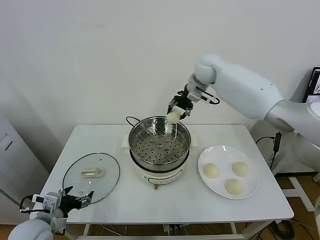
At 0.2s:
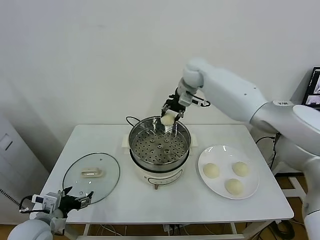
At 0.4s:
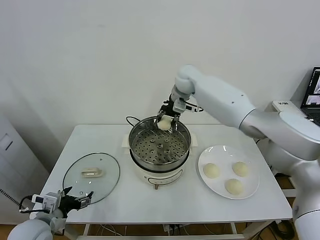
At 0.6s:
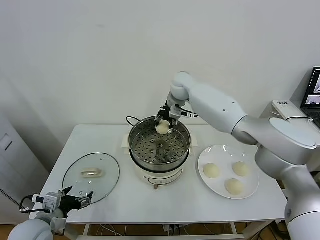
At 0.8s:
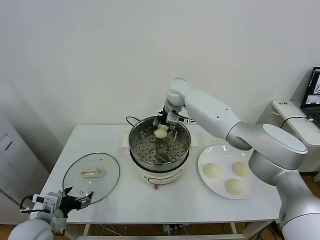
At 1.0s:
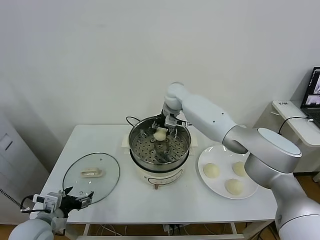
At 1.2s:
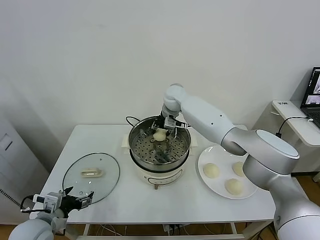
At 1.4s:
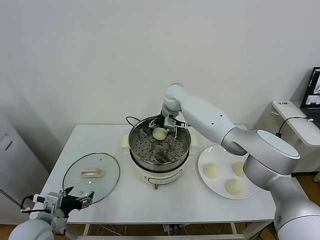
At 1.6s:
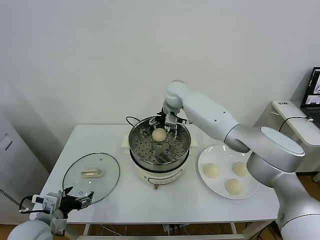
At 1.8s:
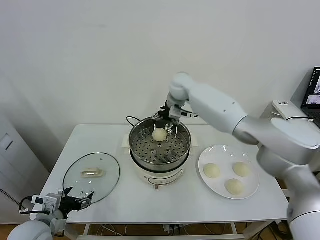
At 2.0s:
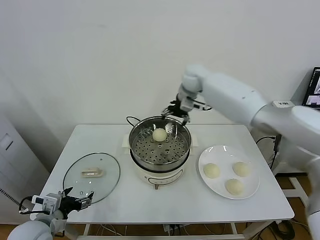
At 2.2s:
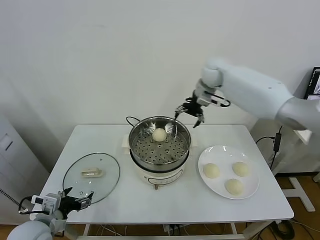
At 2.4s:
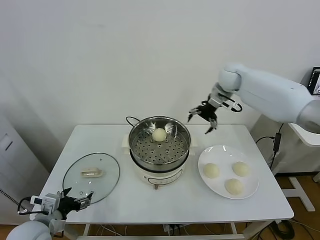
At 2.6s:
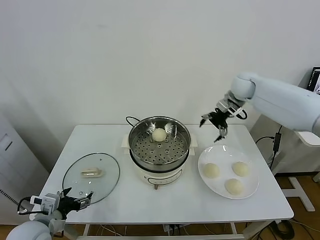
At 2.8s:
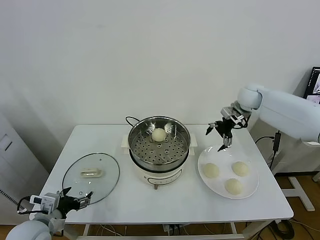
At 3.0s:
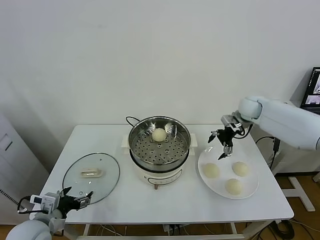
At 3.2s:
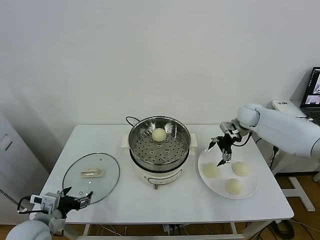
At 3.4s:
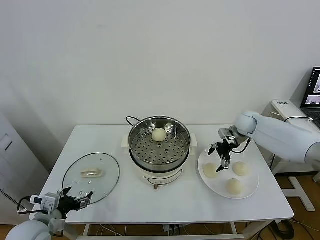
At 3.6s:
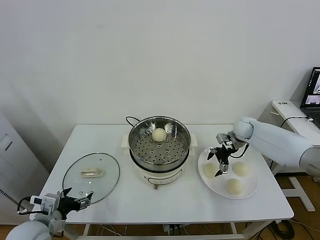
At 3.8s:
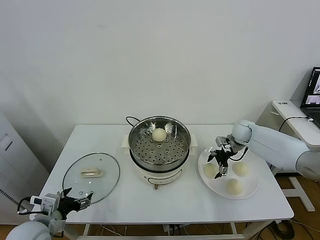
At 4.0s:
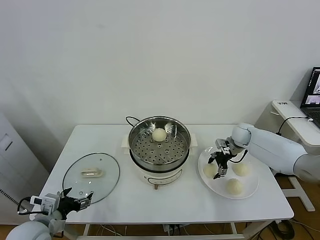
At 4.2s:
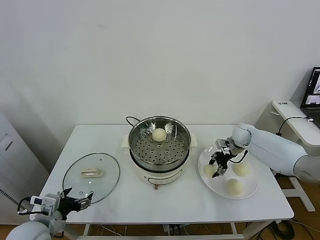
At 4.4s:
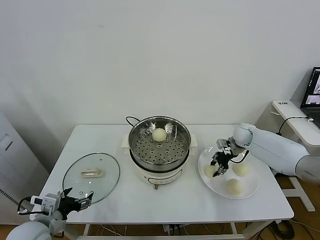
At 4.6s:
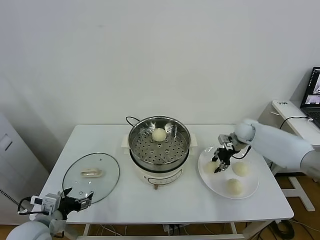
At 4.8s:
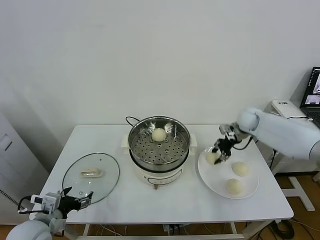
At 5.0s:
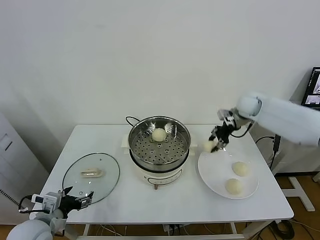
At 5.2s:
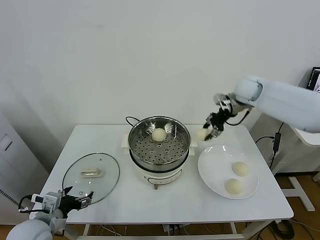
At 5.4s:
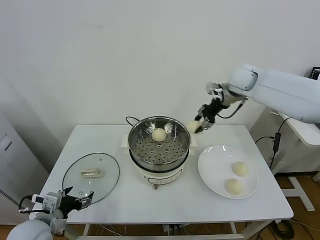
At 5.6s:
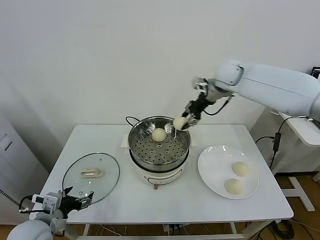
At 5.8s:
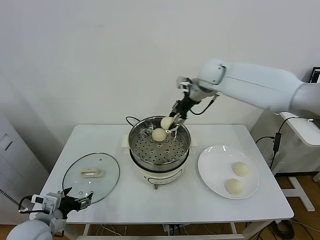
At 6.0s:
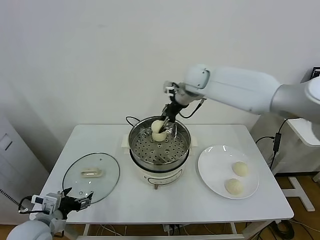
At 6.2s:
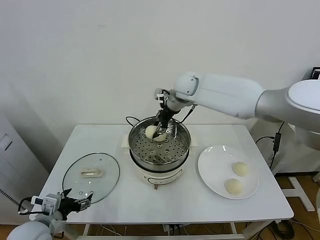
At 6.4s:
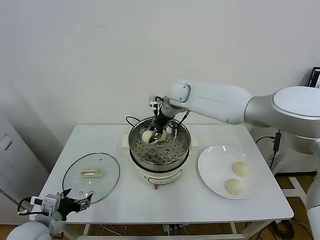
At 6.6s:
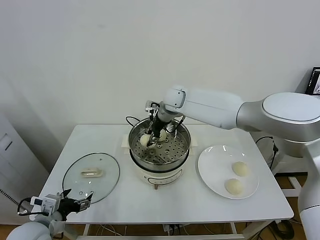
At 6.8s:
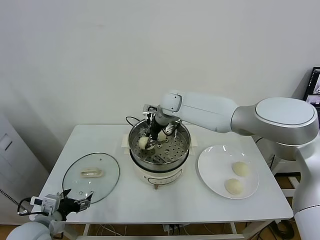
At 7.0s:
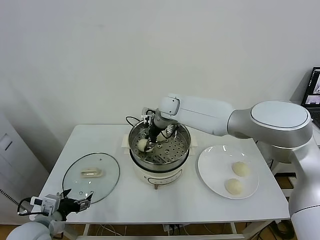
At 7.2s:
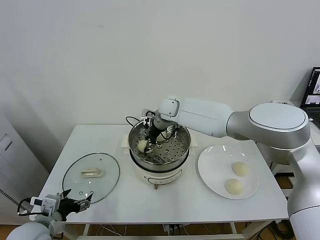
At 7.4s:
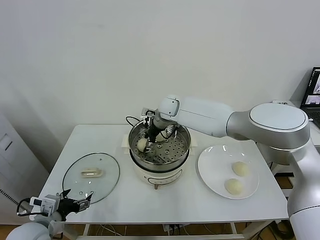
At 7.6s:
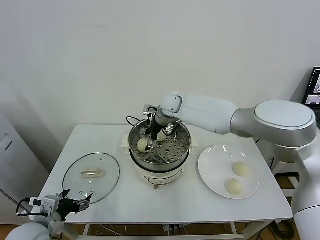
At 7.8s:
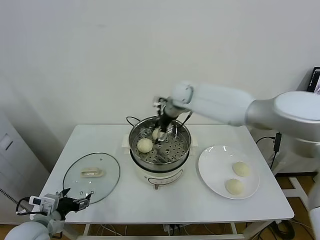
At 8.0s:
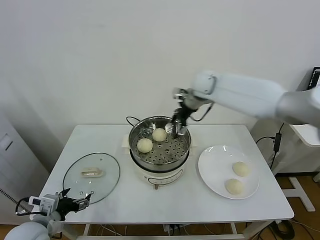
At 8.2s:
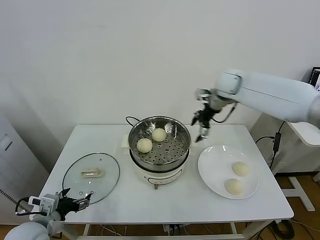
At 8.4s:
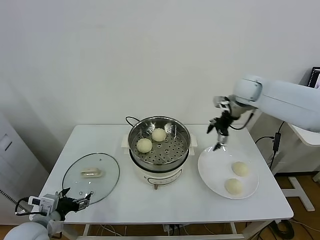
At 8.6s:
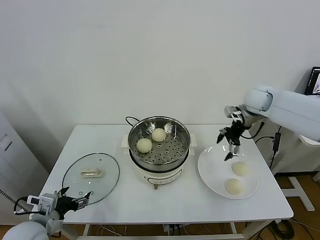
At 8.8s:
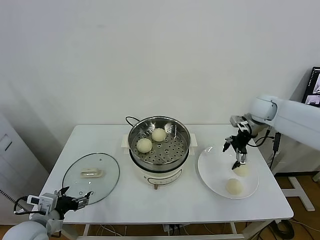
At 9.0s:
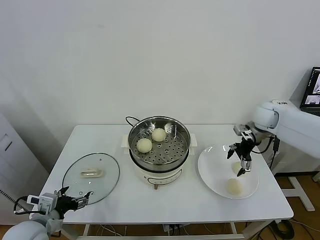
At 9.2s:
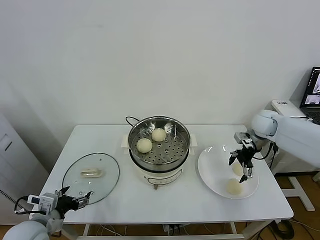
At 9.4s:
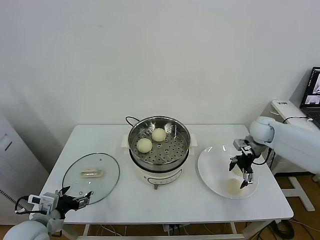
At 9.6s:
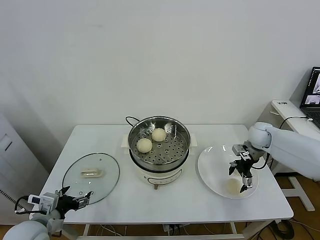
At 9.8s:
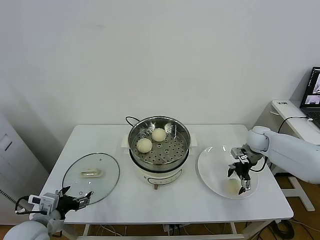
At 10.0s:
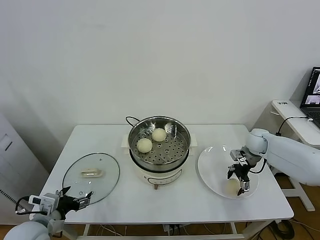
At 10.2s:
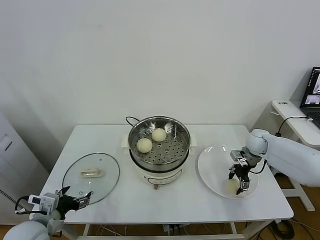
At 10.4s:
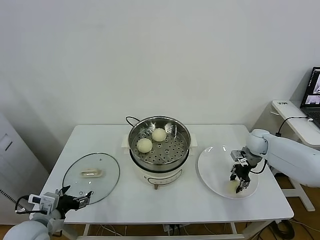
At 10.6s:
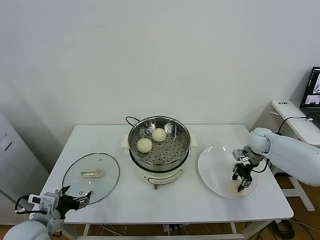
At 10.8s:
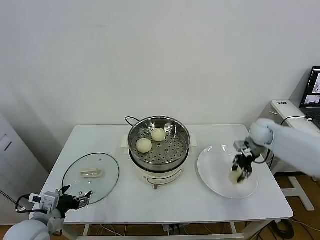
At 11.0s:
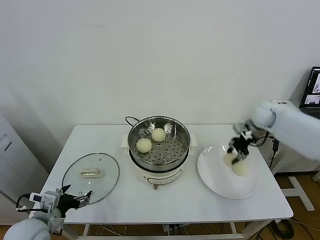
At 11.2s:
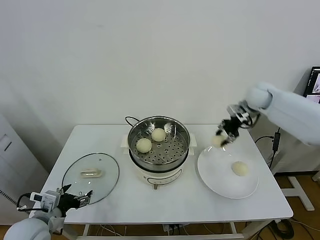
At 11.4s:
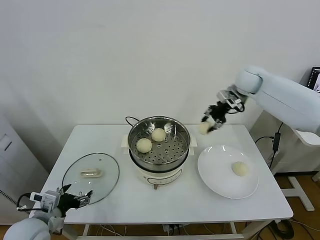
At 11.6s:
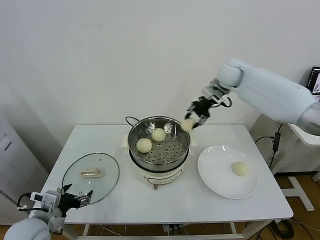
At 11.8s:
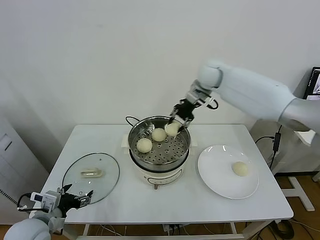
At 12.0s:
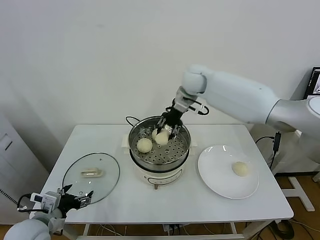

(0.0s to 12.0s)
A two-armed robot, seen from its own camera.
Task of the whole recording: take steamed baozi put them in steamer.
Step, 1.6s - 4.0s: Grasp the baozi in the plate with right gripper.
Step, 4.2s - 7.6s: Place the baozi on the steamer with right gripper.
Step, 7.8s - 10.2s: Grasp the baozi in the plate with right gripper.
0.0s - 1.6s: The right gripper goes approximately 10 cm downward and to the left, and opens.
1.6s - 3.0s: The right gripper is displaced to the right by roughly 30 cm.
3.0s - 4.4s: The right gripper is displaced downward by approximately 10 cm, and closes its fingers.
4.4s - 6.0s: The right gripper heads to the left and upward, covering about 35 cm.
6.0s - 7.6s: The right gripper heads downward, covering some 10 cm, and opens up.
7.6s - 9.0s: The right gripper goes roughly 30 cm to the right.
9.0s - 10.4s: The right gripper travels downward by roughly 10 cm, and closes its fingers.
10.4s - 12.0s: The right gripper moves to the left and upward, roughly 35 cm.

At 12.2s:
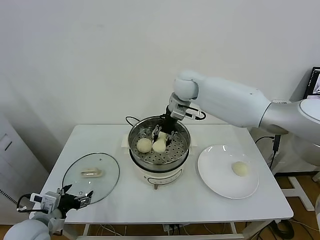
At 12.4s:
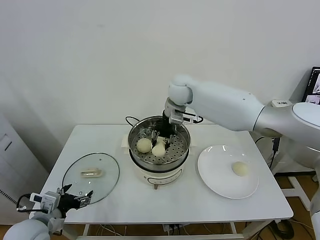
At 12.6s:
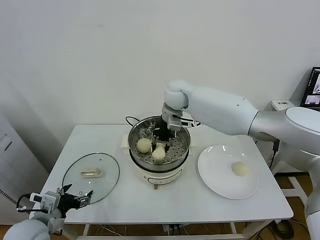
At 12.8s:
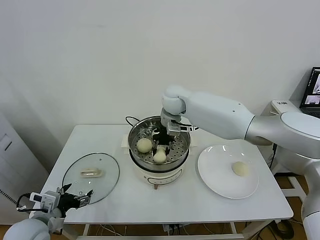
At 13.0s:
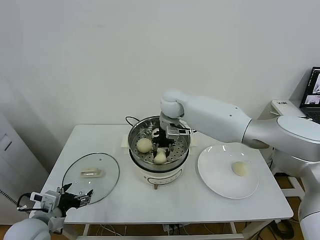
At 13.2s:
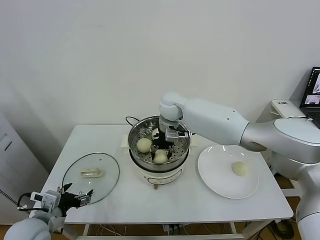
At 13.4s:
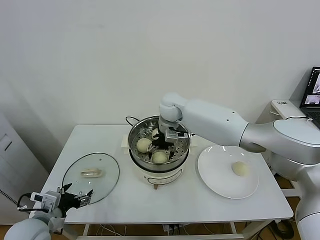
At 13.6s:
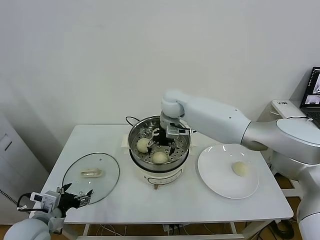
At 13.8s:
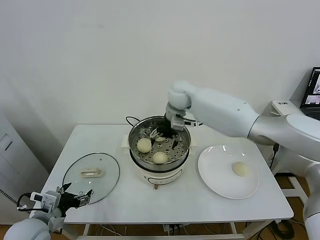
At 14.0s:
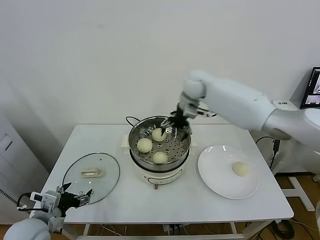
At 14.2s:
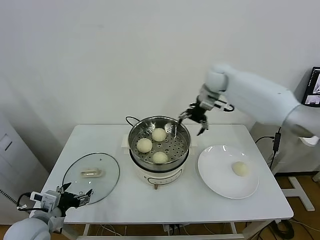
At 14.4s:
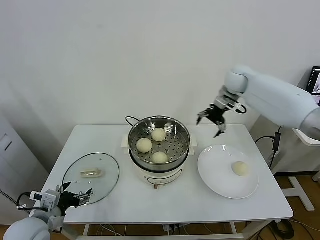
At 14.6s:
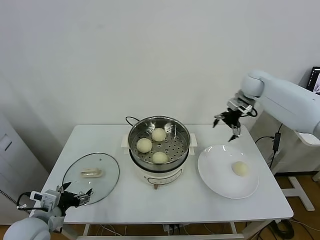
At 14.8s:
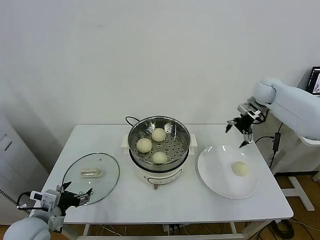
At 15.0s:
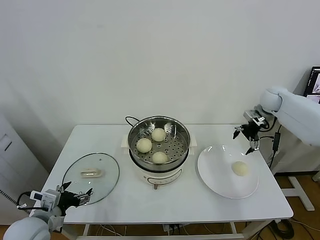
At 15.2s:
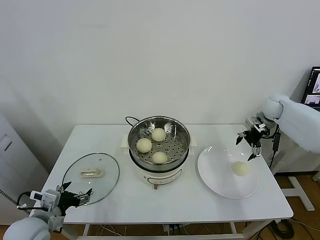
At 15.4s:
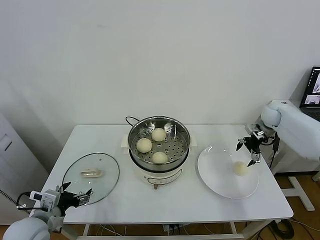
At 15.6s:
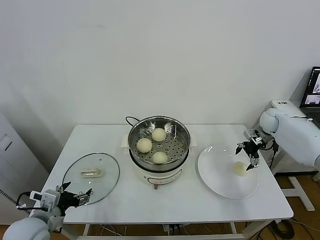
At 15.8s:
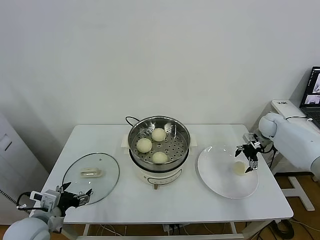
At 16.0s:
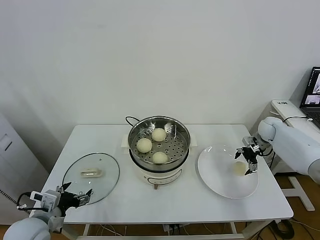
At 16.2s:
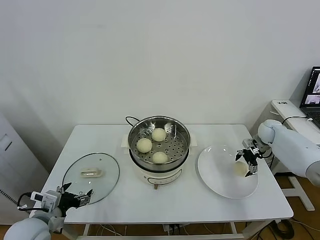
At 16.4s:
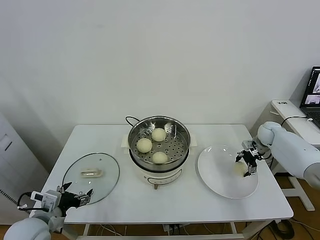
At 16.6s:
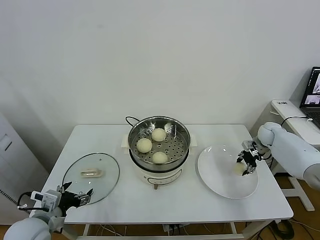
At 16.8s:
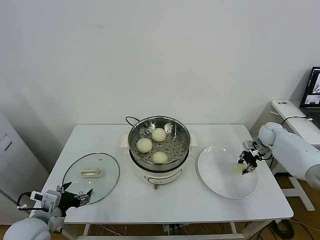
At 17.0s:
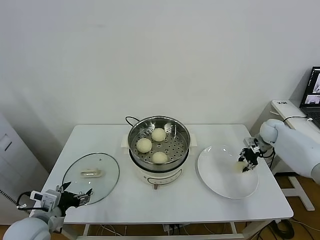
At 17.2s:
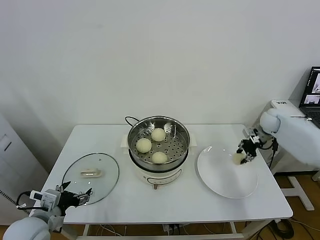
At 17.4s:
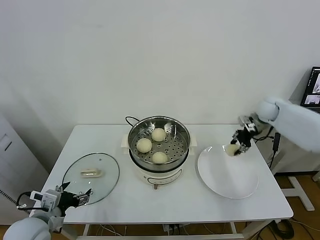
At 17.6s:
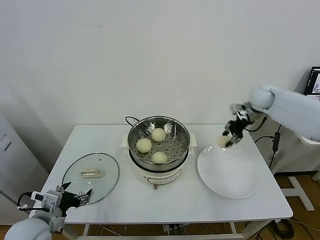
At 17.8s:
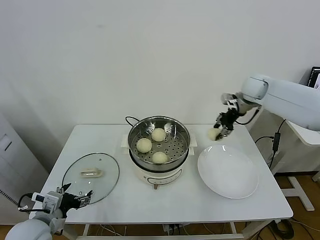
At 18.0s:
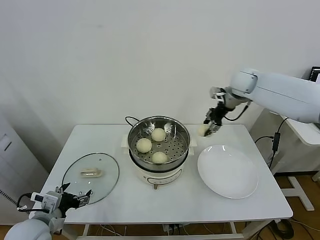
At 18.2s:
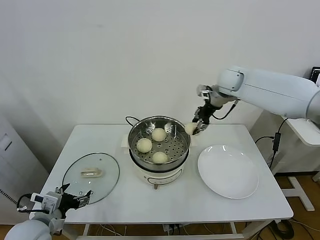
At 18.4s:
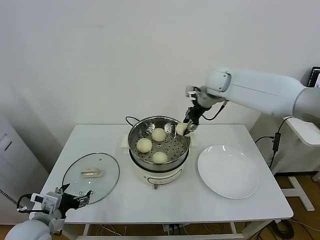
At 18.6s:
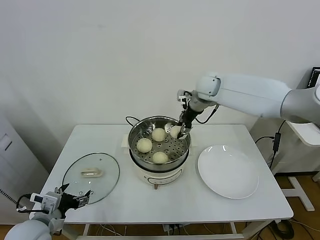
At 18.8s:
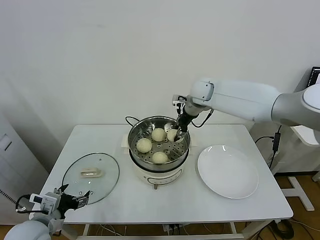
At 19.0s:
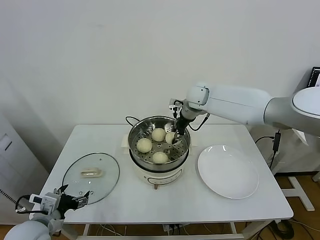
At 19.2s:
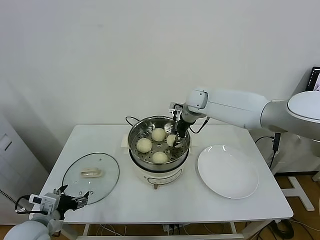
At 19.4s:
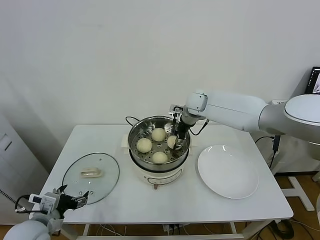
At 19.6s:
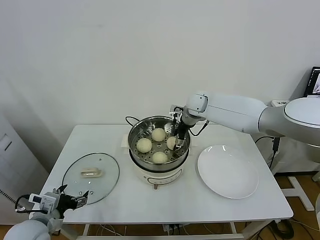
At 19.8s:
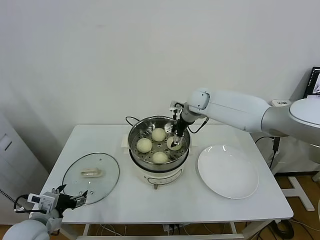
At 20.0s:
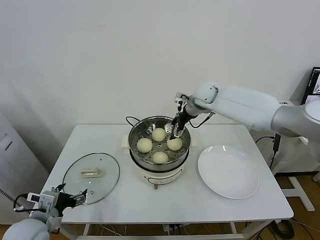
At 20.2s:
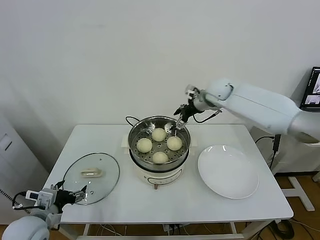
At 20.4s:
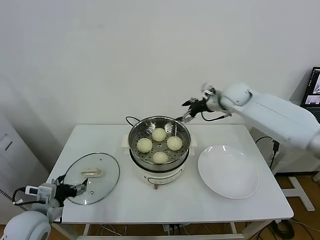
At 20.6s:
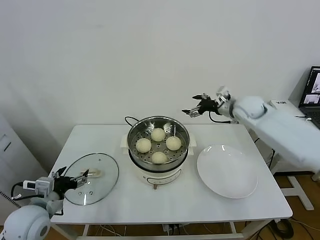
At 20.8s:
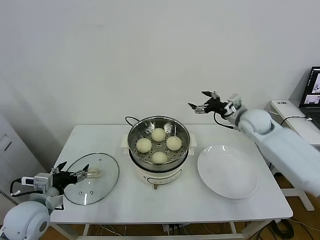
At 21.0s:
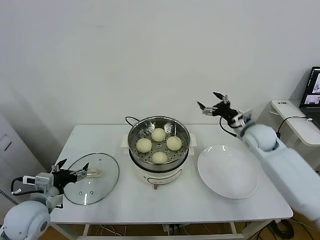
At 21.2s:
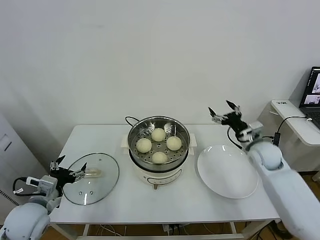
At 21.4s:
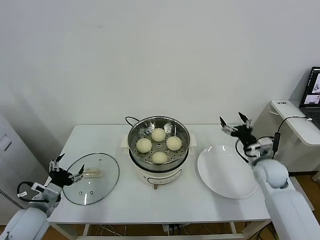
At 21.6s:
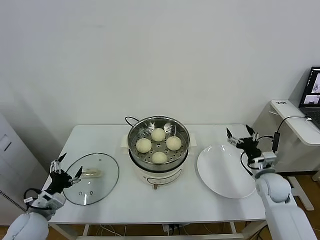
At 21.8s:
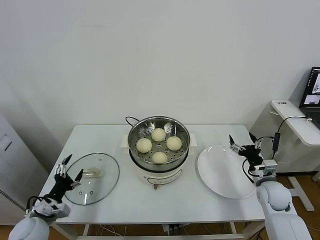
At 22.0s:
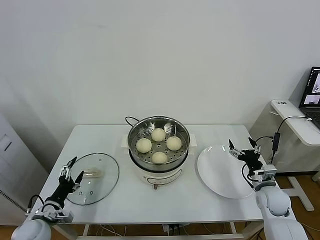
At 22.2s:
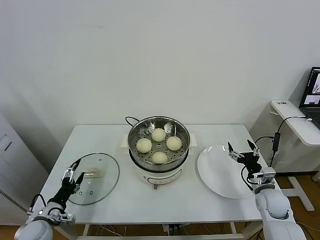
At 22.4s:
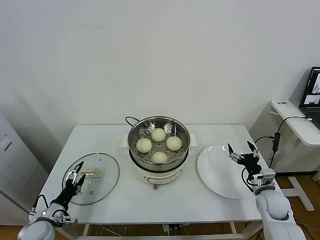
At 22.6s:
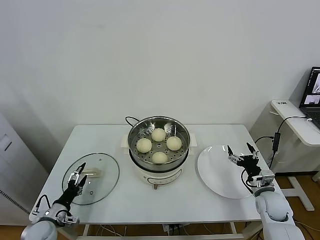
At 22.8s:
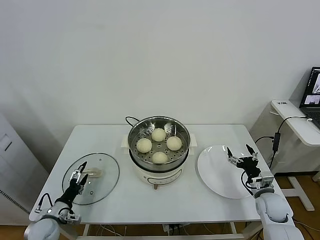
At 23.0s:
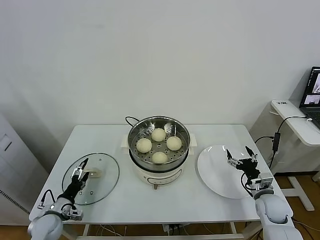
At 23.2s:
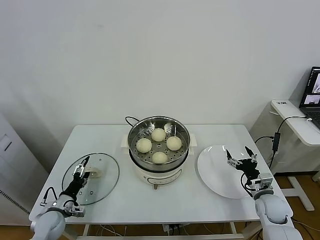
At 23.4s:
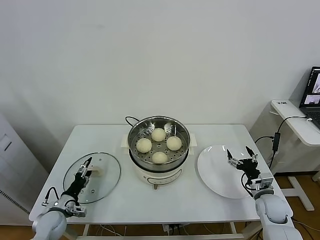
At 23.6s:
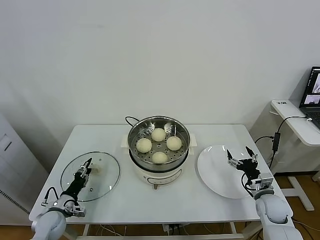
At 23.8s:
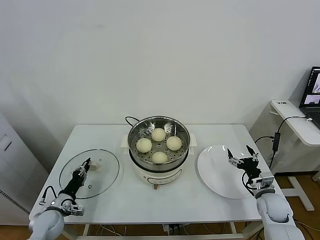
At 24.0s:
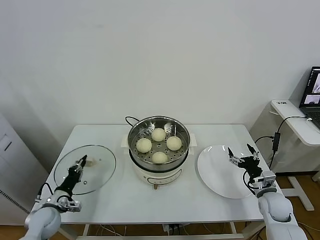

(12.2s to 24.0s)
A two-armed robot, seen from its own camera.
Task of the whole recording: take steamed baozi put them in steamer.
Step, 13.6s - 16.6s: Grasp the baozi in the plate with right gripper.
Step, 16.8s - 19.6s: Place the baozi on the steamer with right gripper.
12.2s - 13.6s: The right gripper moves downward, about 5 cm, and opens up.
13.6s - 15.2s: The right gripper moves to the right, about 40 cm.
15.2s - 16.6s: The right gripper shifts some 10 cm downward, and closes up.
16.6s - 18.2s: The right gripper is displaced upward and to the left by some 35 cm.
18.2s - 19.6s: The right gripper is displaced downward and to the left by approximately 15 cm, and opens up.
19.6s - 21.0s: The right gripper goes roughly 25 cm to the right and backward.
21.0s - 22.6s: The right gripper goes about 25 cm downward and backward. Meanwhile the left gripper is displaced downward by approximately 20 cm.
22.6s - 24.0s: The left gripper closes.
